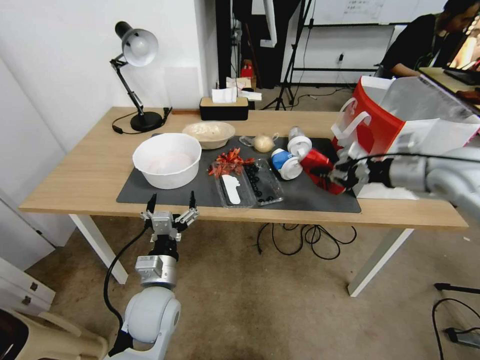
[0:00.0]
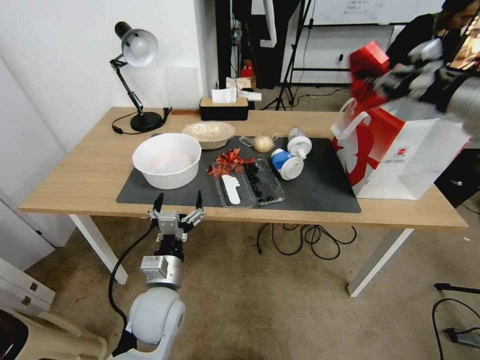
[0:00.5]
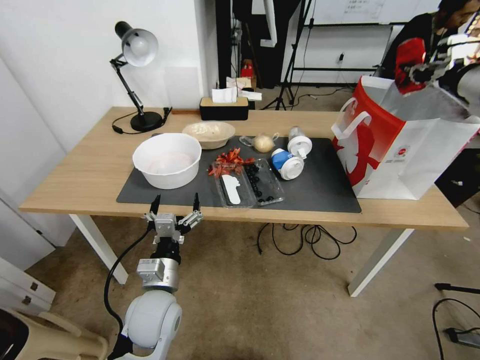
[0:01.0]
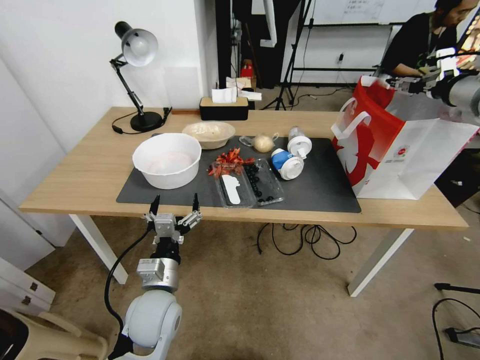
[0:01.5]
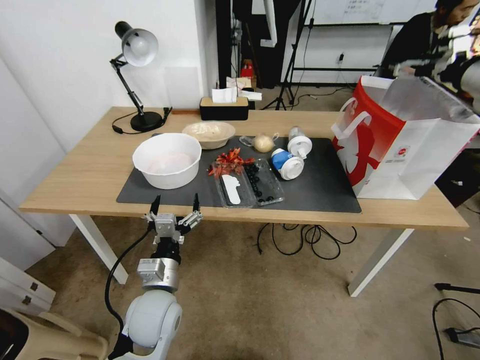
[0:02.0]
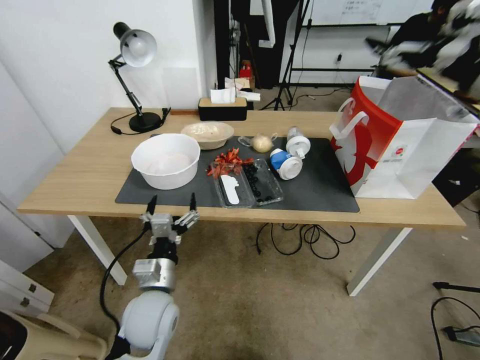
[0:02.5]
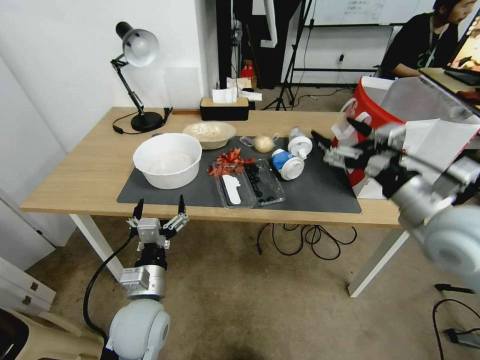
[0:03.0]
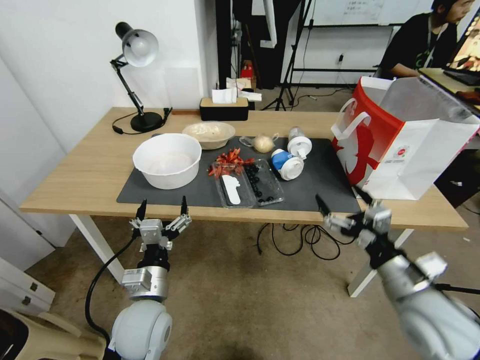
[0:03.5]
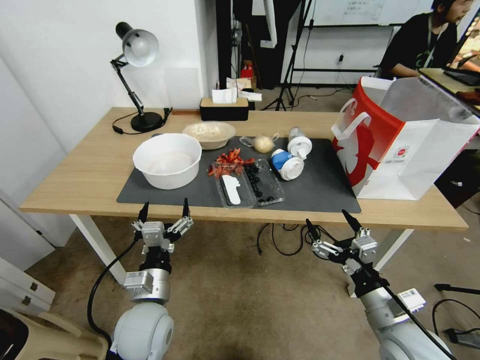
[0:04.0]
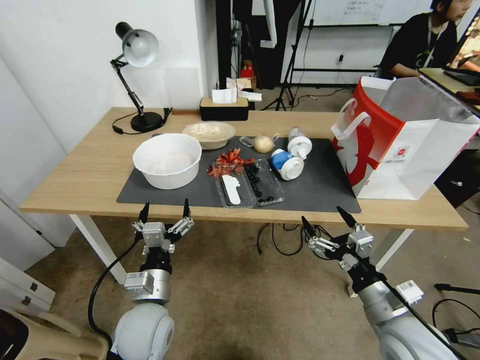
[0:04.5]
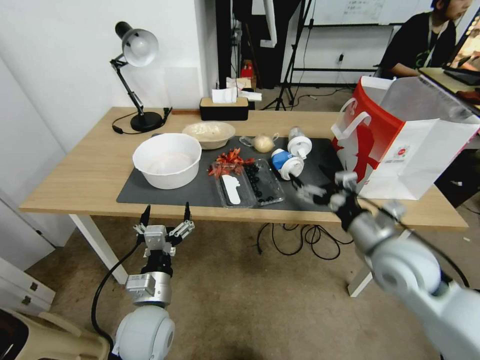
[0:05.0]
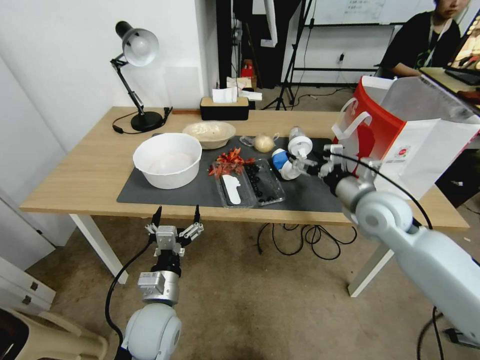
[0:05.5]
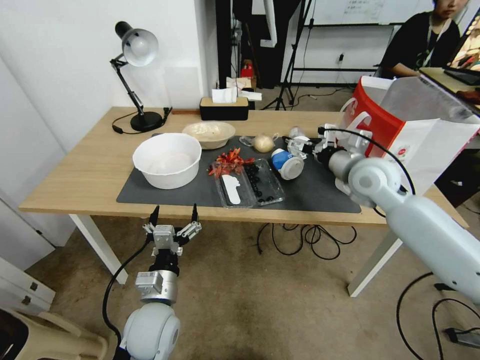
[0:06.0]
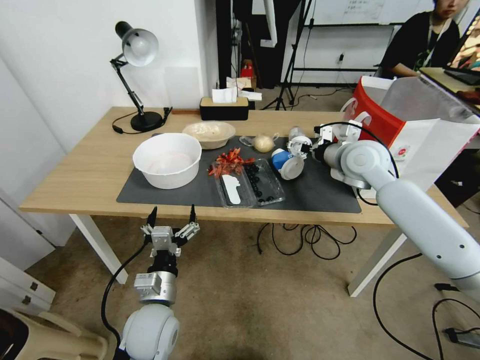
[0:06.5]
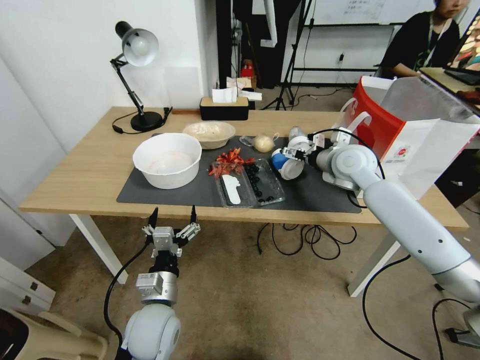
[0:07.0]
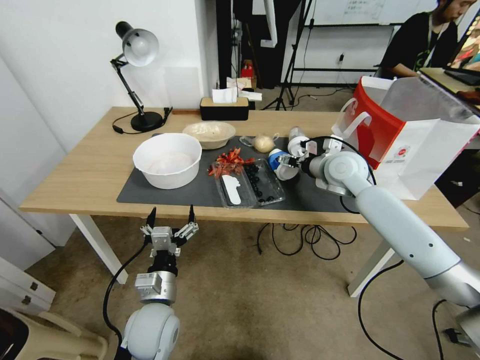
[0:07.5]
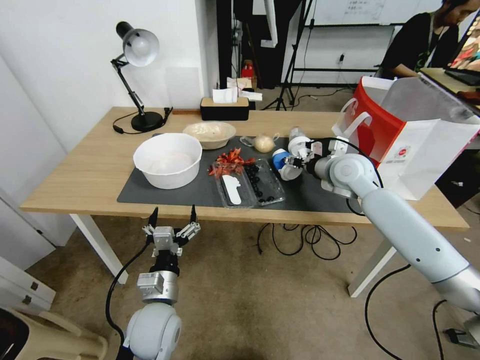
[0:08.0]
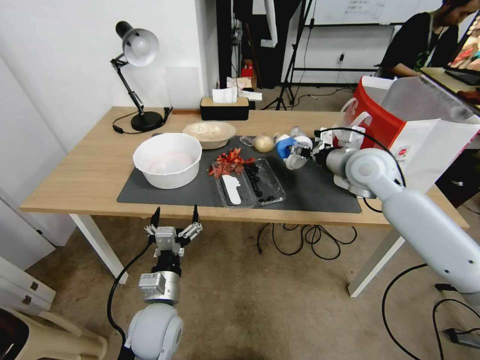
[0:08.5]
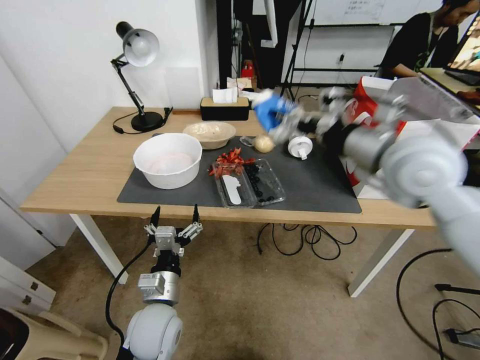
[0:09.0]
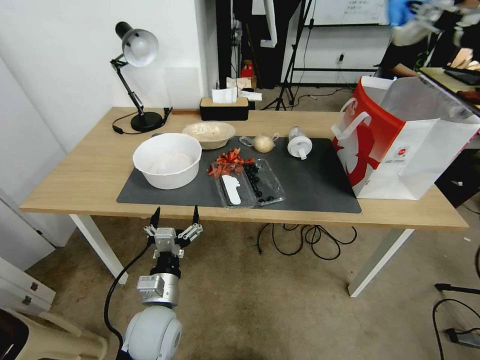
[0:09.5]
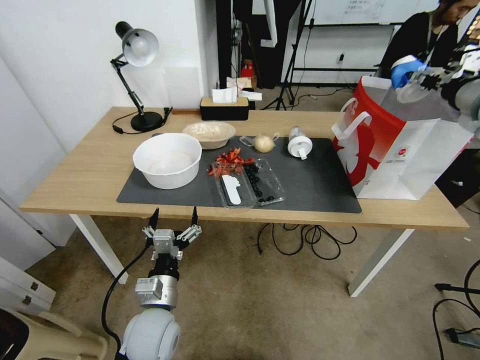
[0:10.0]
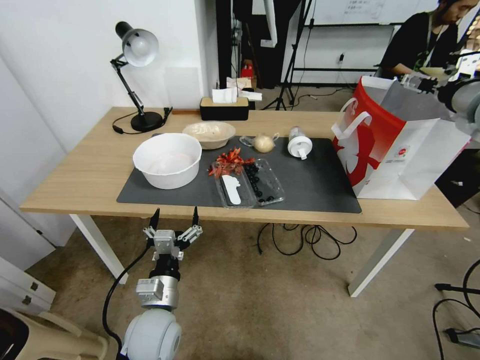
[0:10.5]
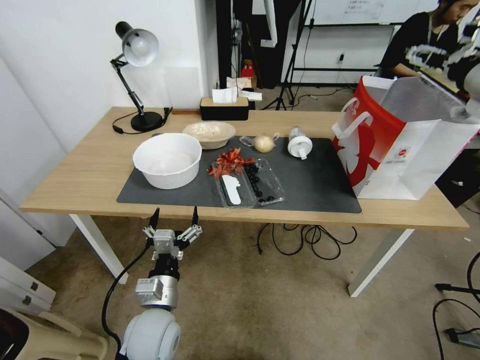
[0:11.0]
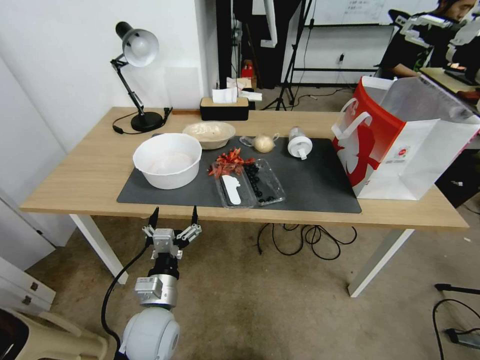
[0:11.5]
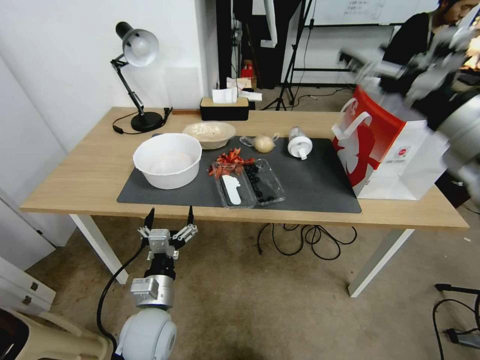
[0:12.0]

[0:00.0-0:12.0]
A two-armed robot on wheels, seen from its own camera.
0:00.0 to 0:02.0: The right gripper heads upward, to the right and forward, covering roughly 15 cm, and opens up.
0:02.0 to 0:04.0: The right gripper moves downward, backward and to the left, some 50 cm.
0:04.0 to 0:06.0: The right gripper heads forward and upward, covering some 30 cm.
0:06.0 to 0:08.0: The right gripper changes place by roughly 5 cm, and closes.
0:08.0 to 0:10.0: The right gripper shifts approximately 25 cm upward and to the right.
0:10.0 to 0:12.0: The right gripper travels backward and to the left by some 20 cm, and opens up.

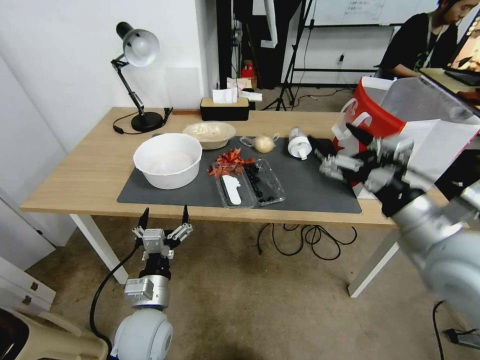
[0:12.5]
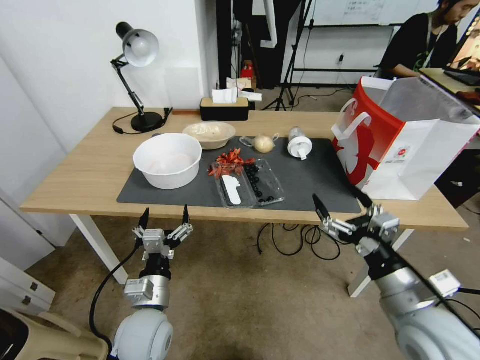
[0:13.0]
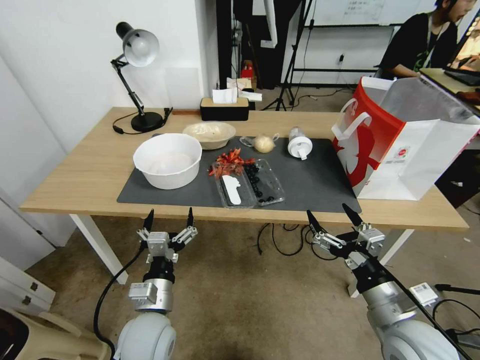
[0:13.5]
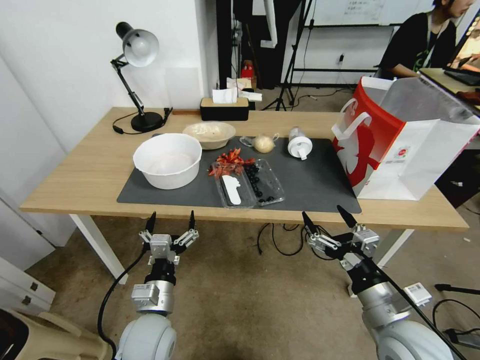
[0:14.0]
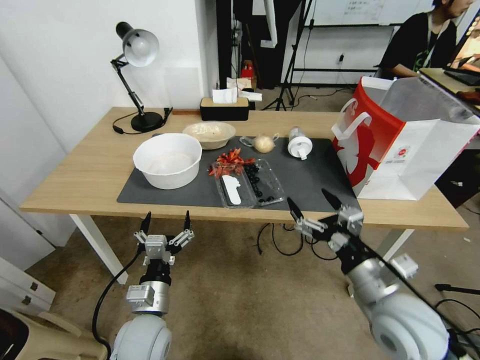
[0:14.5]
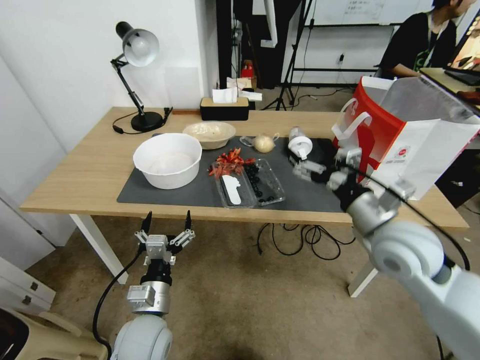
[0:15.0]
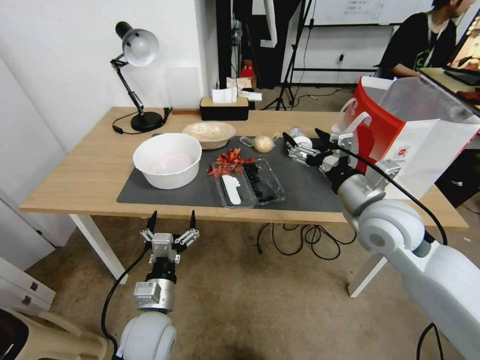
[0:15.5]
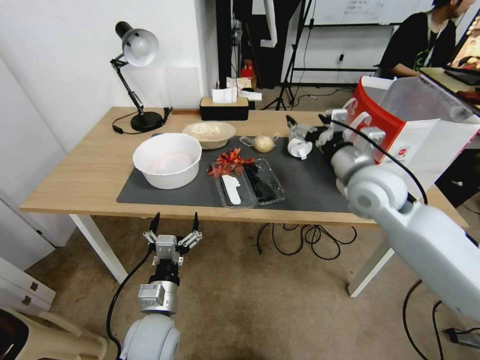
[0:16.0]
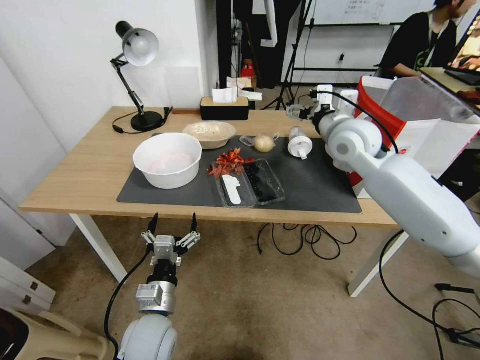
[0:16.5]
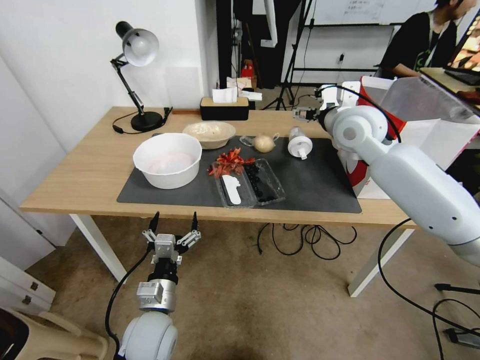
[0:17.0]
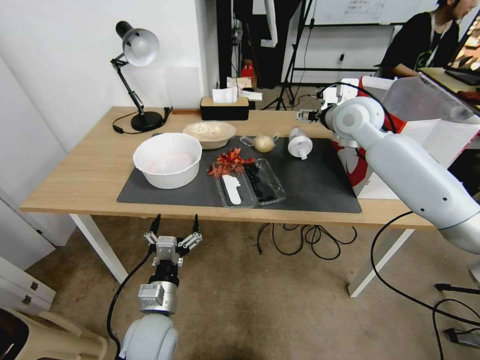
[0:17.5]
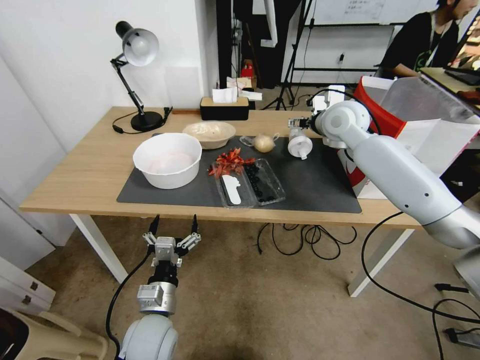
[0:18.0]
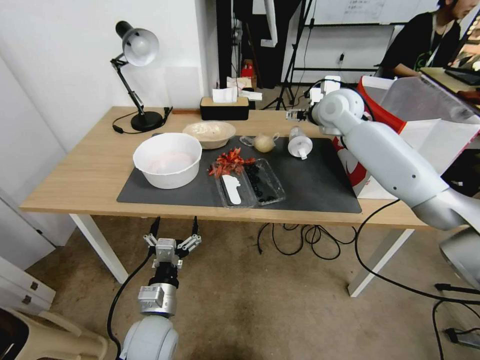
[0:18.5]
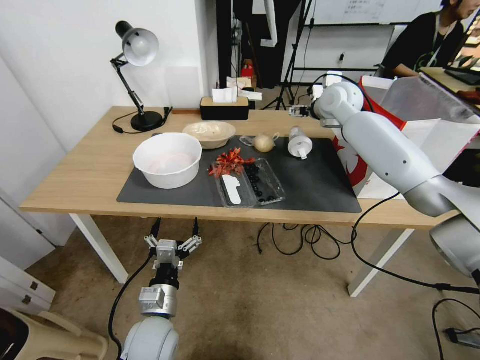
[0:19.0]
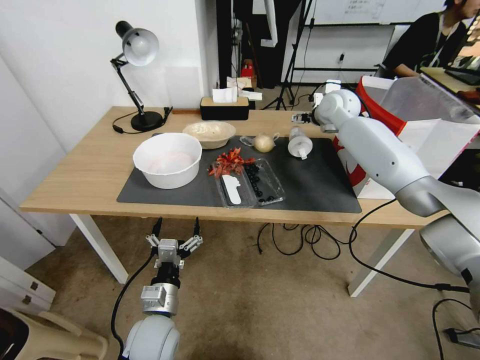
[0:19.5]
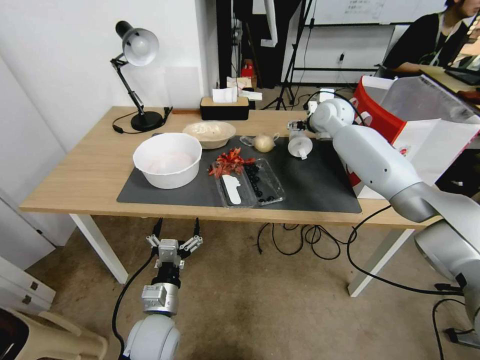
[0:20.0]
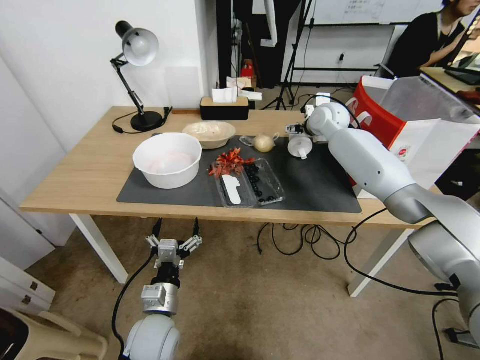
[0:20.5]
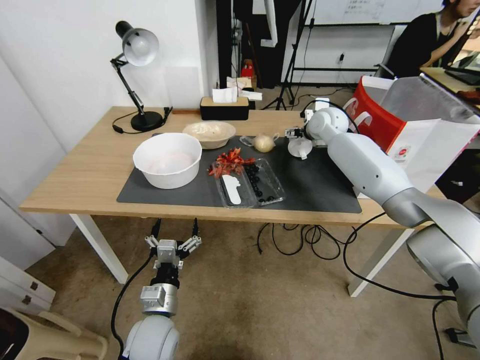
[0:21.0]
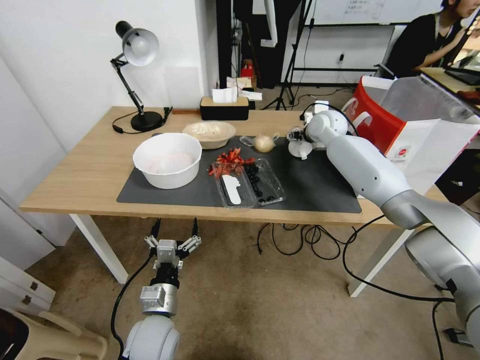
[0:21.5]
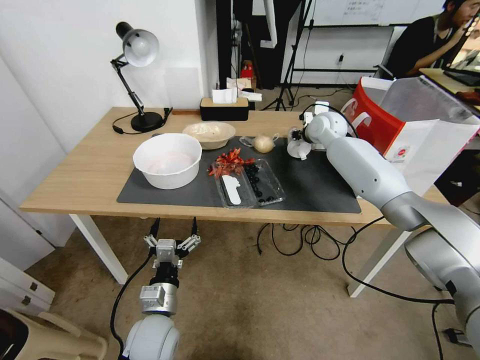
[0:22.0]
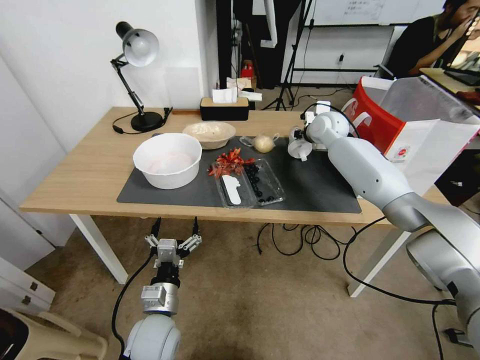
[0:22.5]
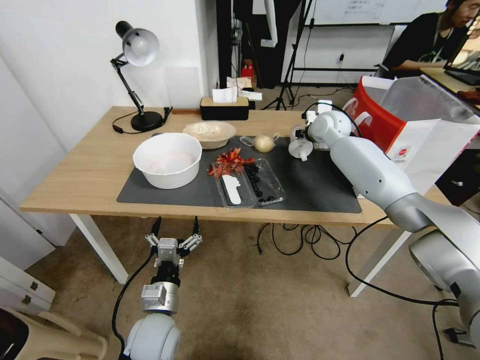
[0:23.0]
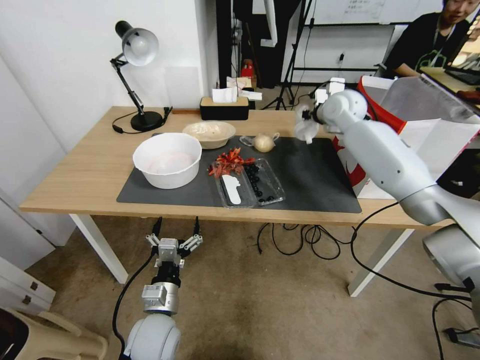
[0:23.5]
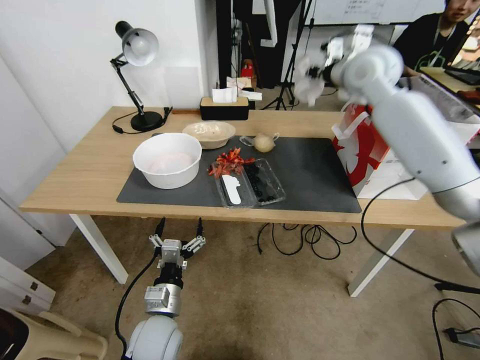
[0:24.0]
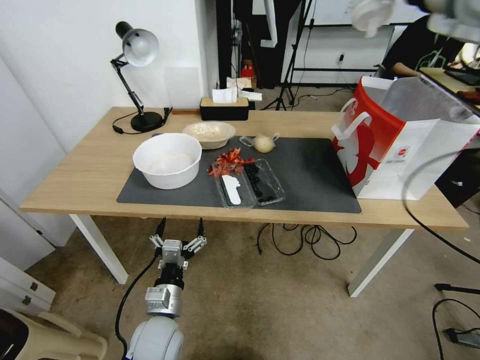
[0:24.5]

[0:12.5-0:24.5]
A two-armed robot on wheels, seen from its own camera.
0:12.5 to 0:14.5: The right gripper heads downward, covering some 10 cm.
0:14.5 to 0:16.5: The right gripper travels forward and upward by approximately 35 cm.
0:16.5 to 0:18.5: The right gripper travels forward by about 10 cm.
0:18.5 to 0:20.5: The right gripper moves downward and forward, some 10 cm.
0:20.5 to 0:22.5: The right gripper closes up.
0:22.5 to 0:24.5: The right gripper goes approximately 35 cm upward and backward.

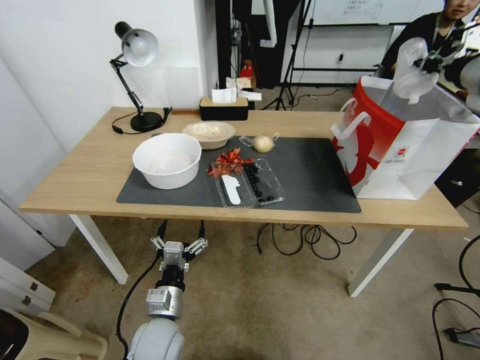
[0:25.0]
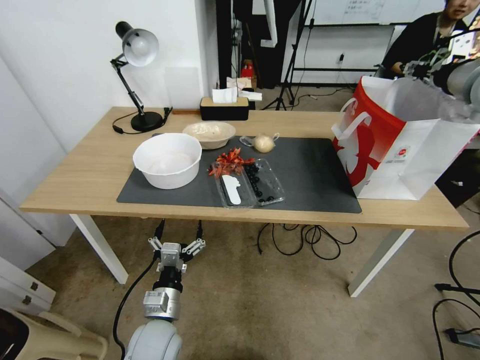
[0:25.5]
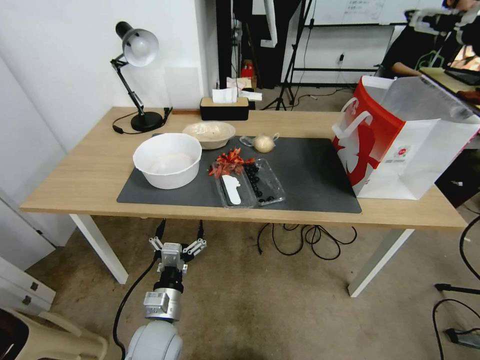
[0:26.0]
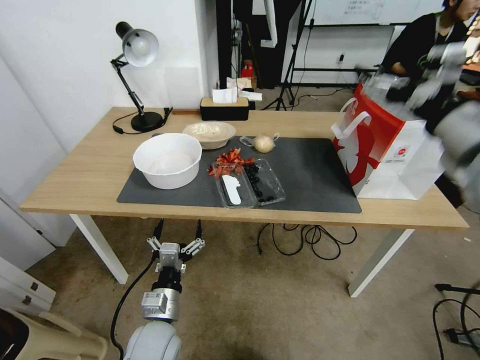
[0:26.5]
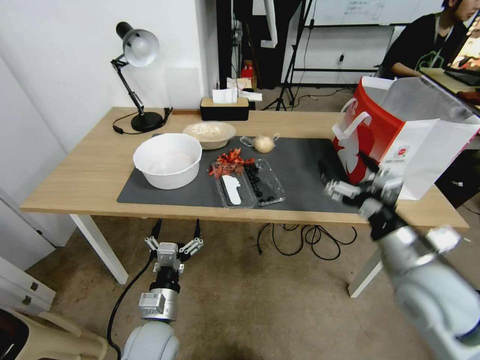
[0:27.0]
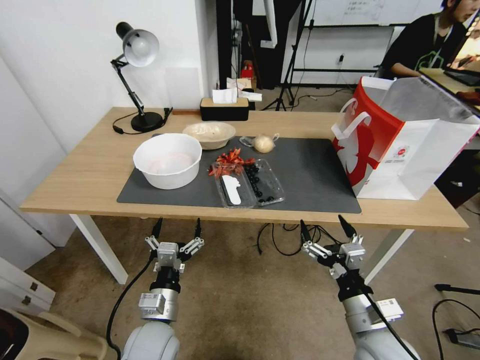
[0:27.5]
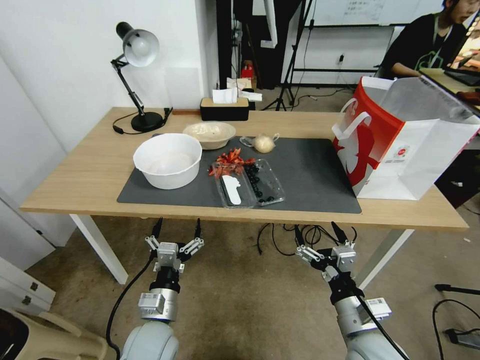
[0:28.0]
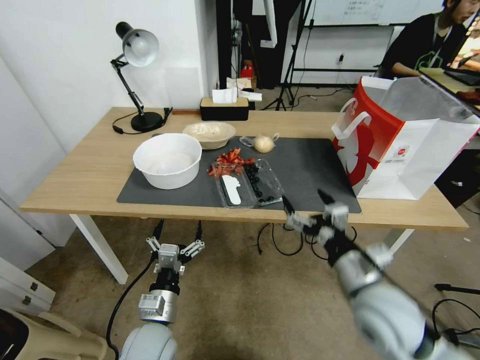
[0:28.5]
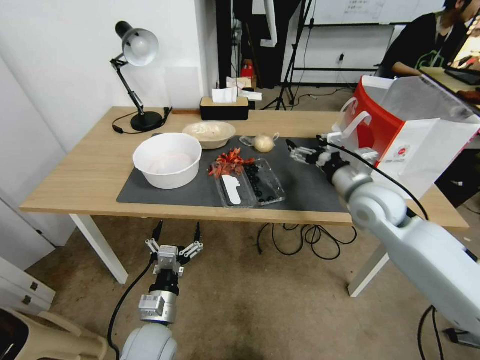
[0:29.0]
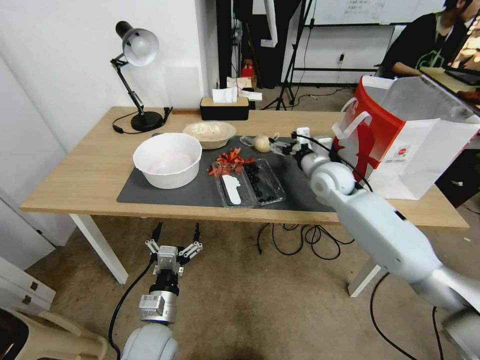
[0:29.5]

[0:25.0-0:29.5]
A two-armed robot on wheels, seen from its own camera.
0:25.0 to 0:27.0: The right gripper goes approximately 35 cm downward, backward and to the left, and opens.
0:27.0 to 0:29.5: The right gripper is displaced forward by roughly 25 cm.
